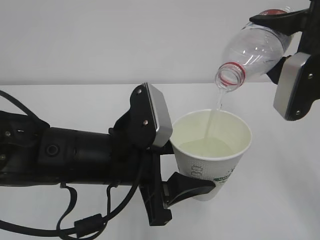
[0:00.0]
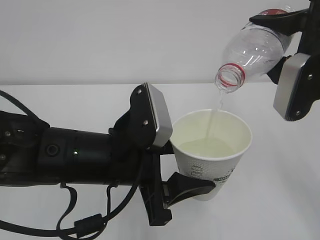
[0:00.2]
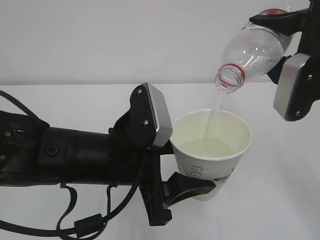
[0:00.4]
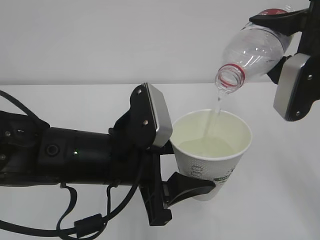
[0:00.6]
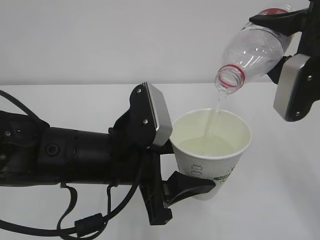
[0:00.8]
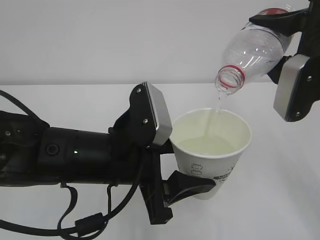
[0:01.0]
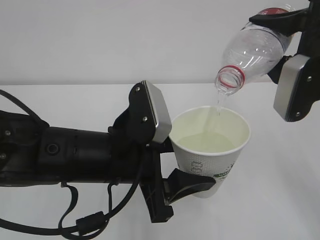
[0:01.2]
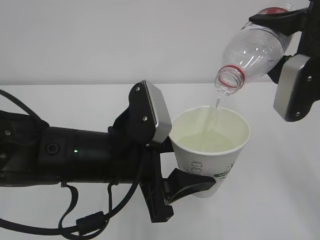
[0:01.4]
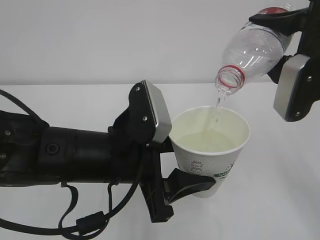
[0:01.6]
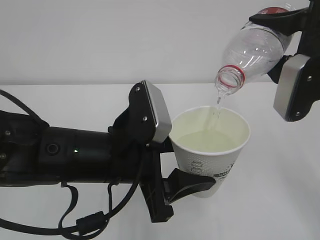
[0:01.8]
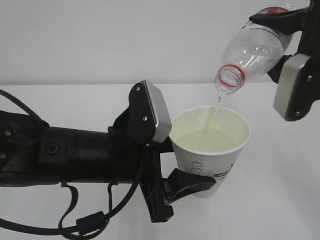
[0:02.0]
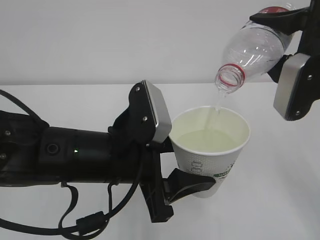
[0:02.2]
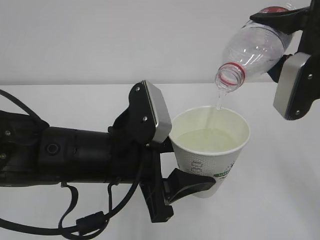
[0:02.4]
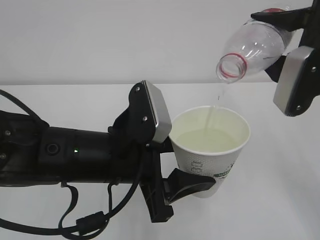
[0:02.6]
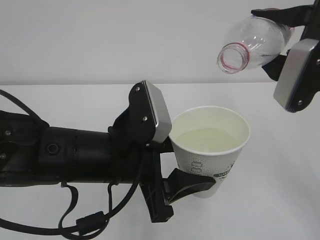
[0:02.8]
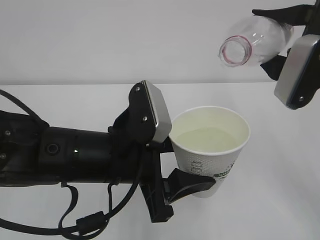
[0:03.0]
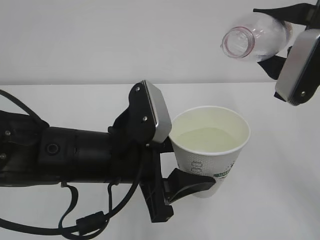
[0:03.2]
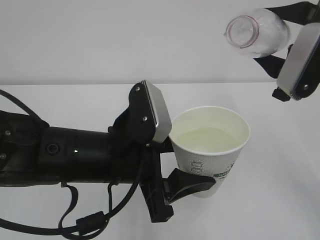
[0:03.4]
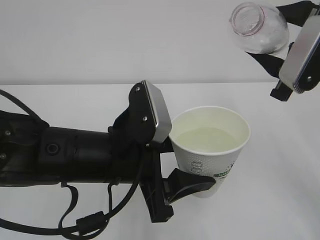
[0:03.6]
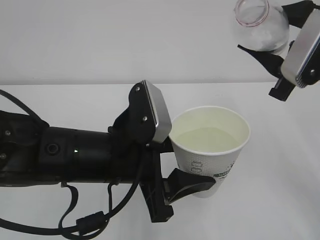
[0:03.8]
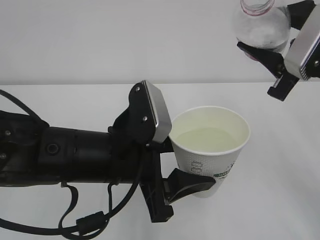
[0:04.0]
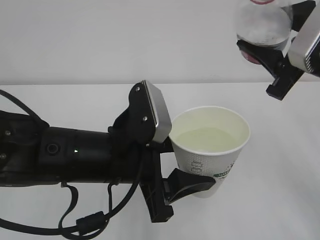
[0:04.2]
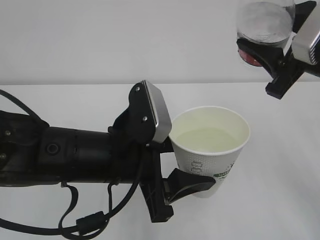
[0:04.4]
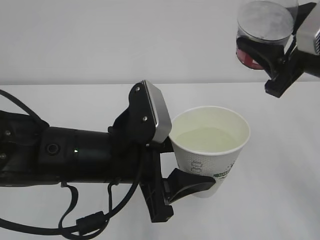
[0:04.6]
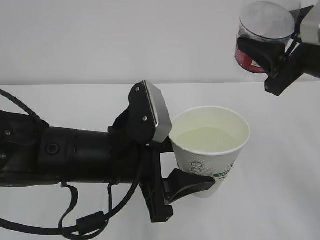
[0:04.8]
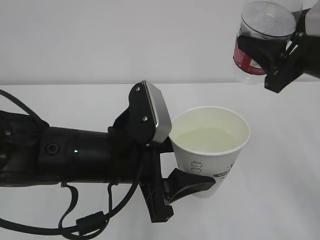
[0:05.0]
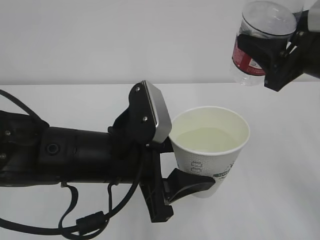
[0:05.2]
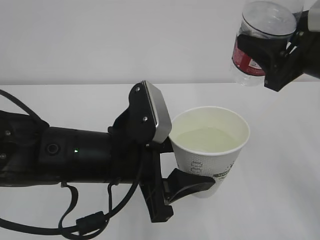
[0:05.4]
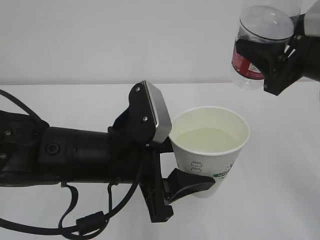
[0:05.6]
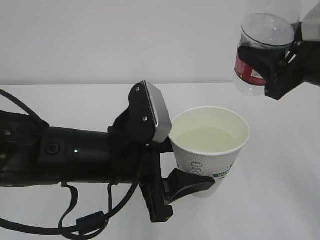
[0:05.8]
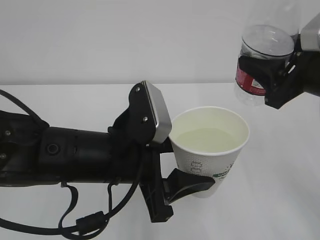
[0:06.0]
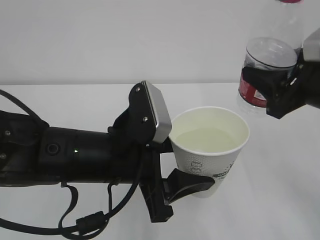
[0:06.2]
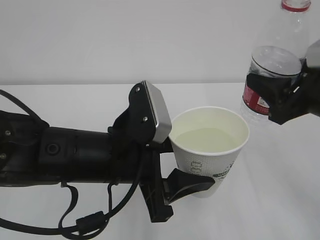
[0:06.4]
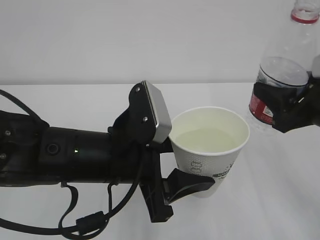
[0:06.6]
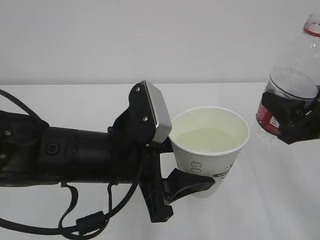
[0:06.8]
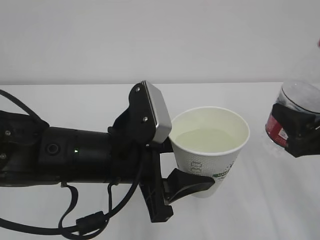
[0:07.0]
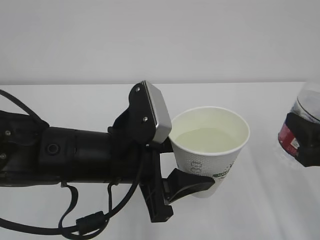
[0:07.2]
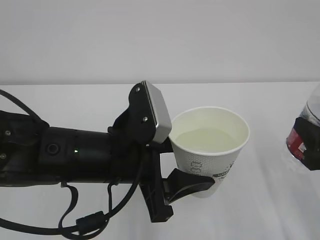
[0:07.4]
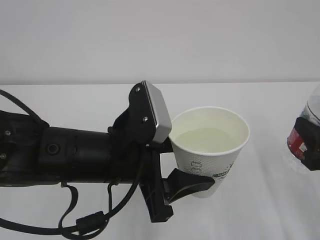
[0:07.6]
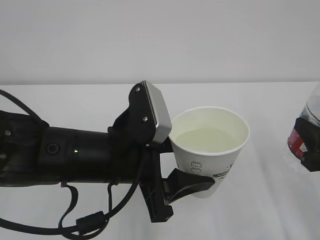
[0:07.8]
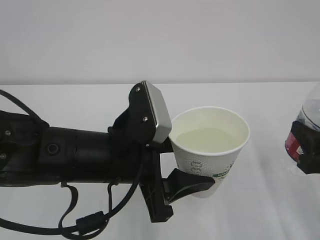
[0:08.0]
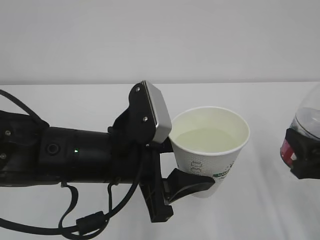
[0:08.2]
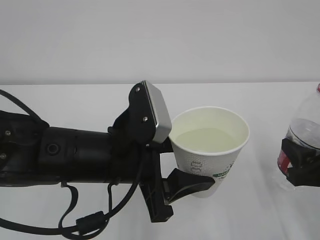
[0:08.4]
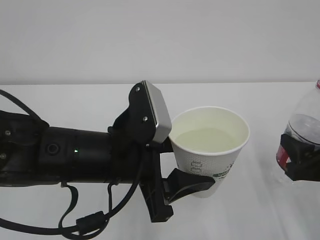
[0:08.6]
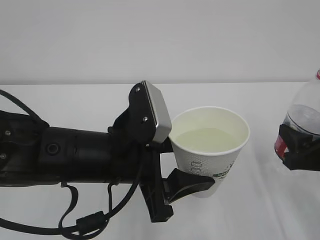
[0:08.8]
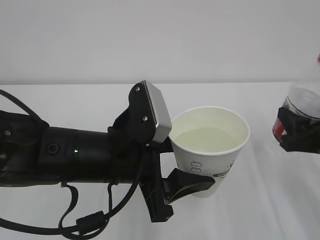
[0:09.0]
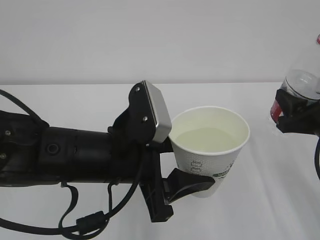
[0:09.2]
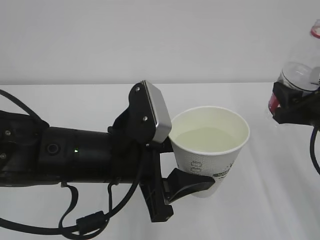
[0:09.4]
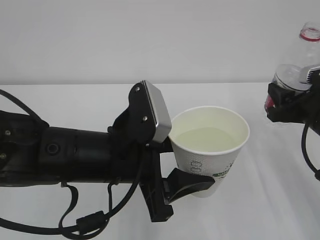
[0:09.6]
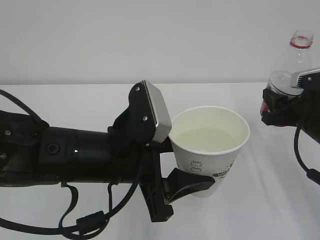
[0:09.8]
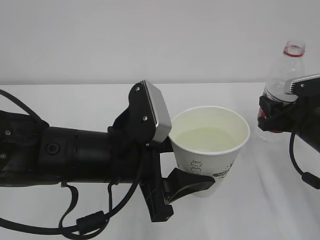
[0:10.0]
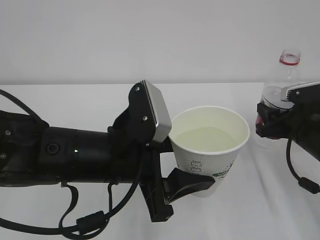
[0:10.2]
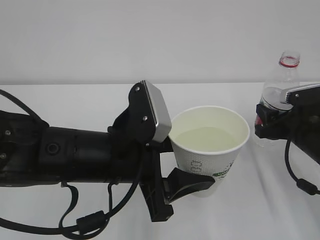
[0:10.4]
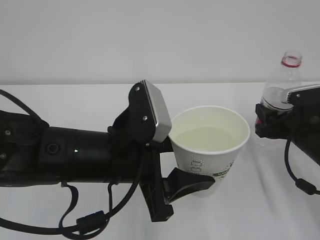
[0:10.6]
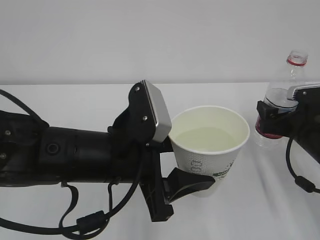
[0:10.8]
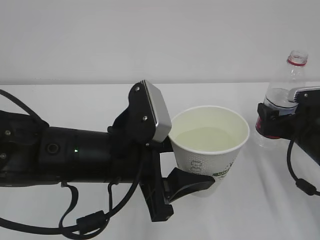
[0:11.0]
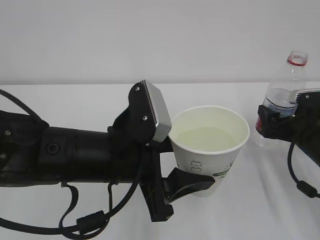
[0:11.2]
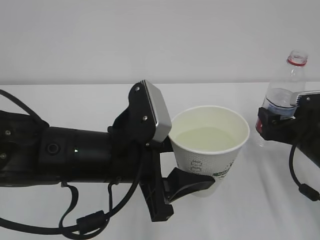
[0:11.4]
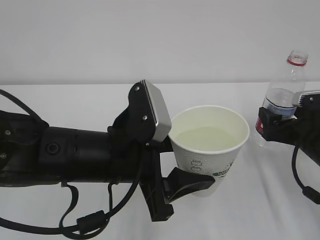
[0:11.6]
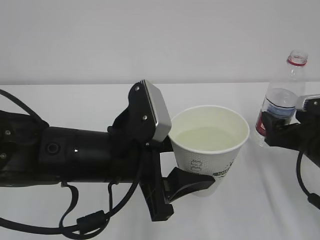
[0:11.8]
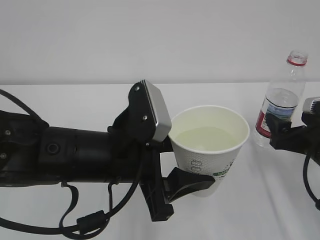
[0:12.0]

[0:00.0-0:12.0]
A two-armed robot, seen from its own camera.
0:00.0 to 0:01.6: The two grippers keep their place.
0:01.6 to 0:03.0: The grippers make only small movements.
0:06.0 to 0:07.6: The right gripper is displaced downward and backward by roughly 10 cm.
0:07.6 to 0:09.0: The right gripper shifts by roughly 5 cm.
0:09.0 to 0:10.4: The right gripper heads forward, covering approximately 10 cm.
0:10.4 to 0:12.0: The right gripper opens.

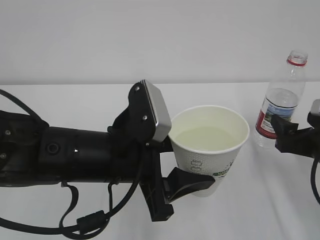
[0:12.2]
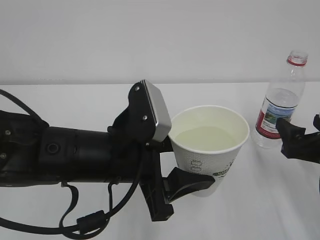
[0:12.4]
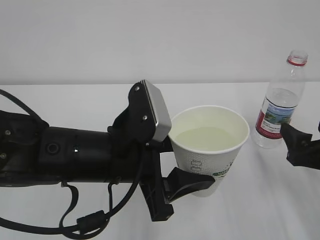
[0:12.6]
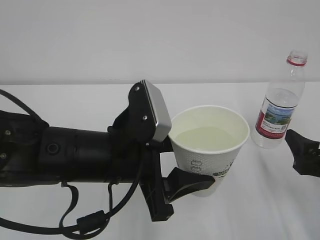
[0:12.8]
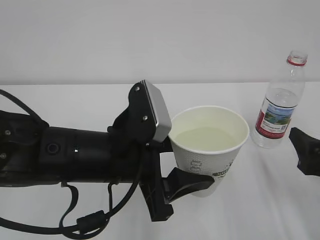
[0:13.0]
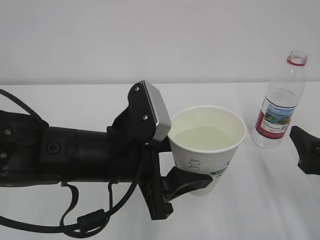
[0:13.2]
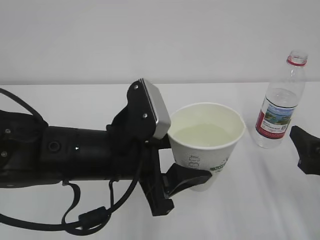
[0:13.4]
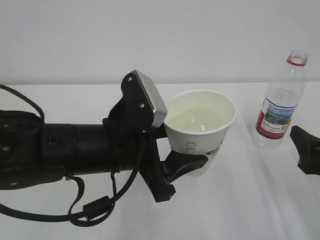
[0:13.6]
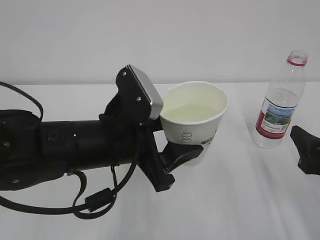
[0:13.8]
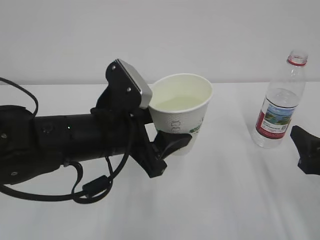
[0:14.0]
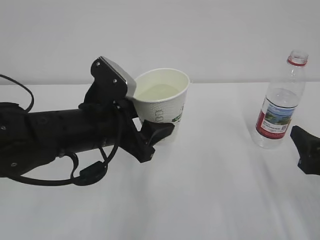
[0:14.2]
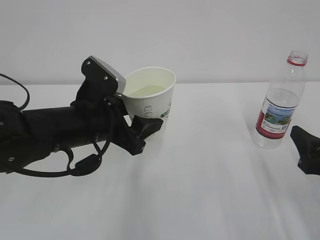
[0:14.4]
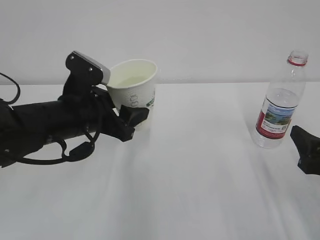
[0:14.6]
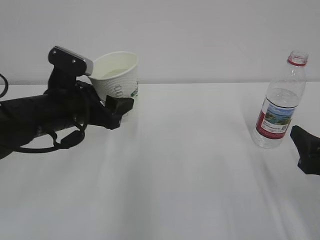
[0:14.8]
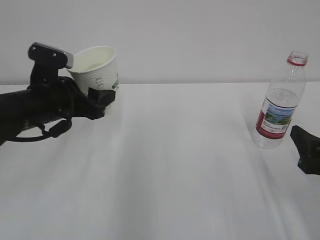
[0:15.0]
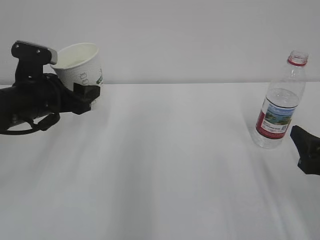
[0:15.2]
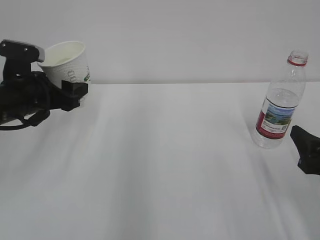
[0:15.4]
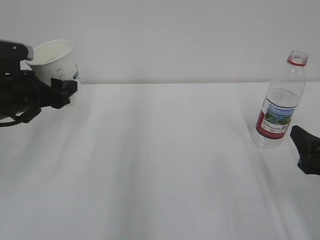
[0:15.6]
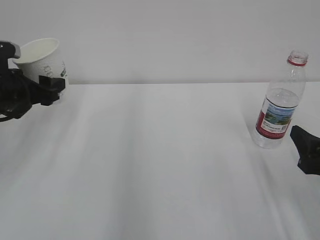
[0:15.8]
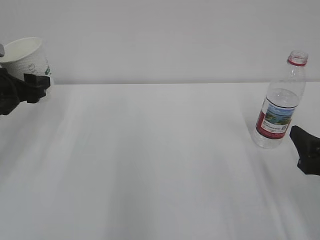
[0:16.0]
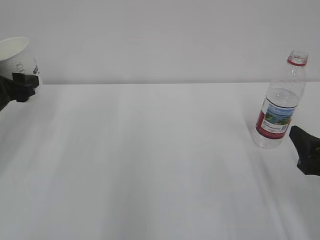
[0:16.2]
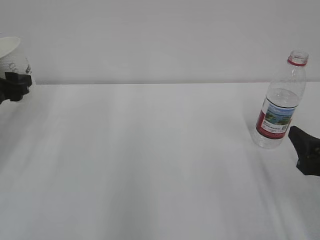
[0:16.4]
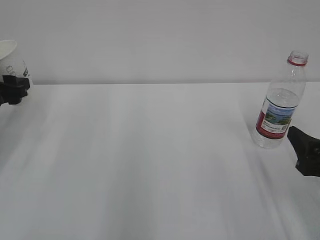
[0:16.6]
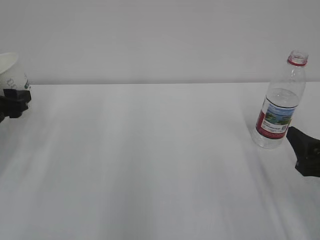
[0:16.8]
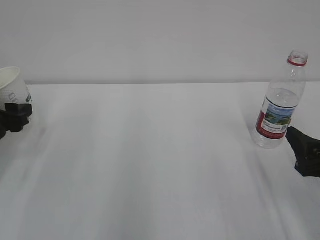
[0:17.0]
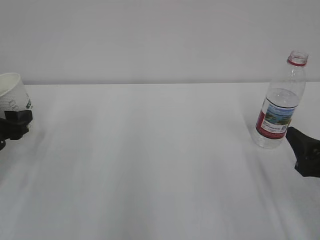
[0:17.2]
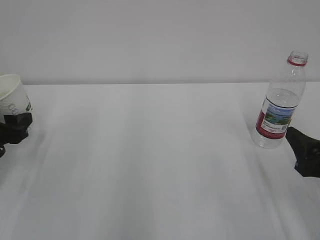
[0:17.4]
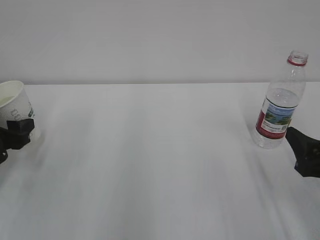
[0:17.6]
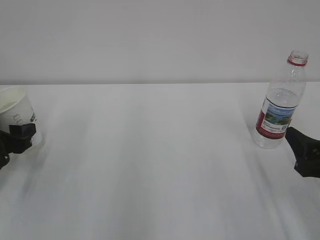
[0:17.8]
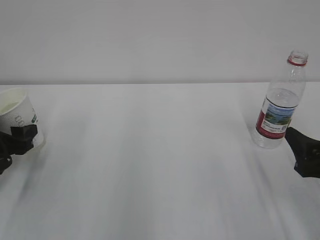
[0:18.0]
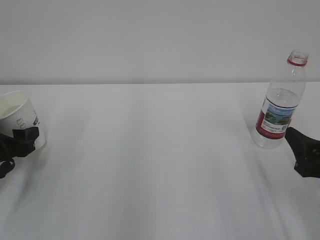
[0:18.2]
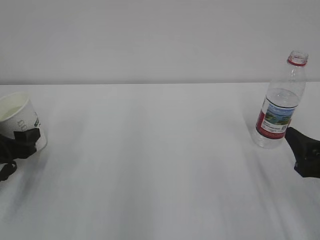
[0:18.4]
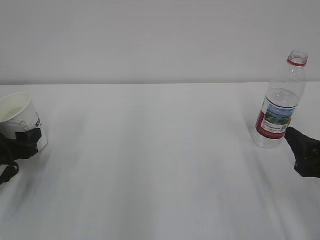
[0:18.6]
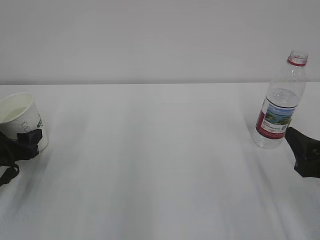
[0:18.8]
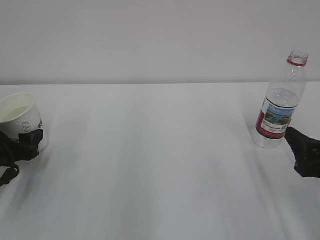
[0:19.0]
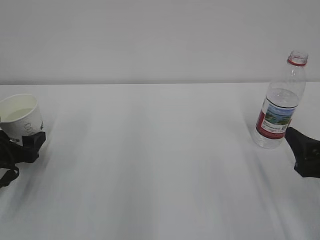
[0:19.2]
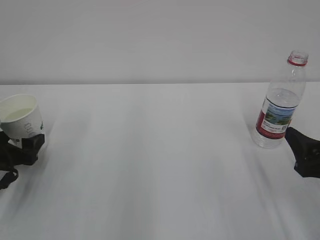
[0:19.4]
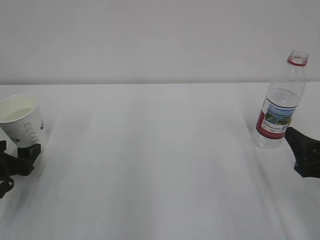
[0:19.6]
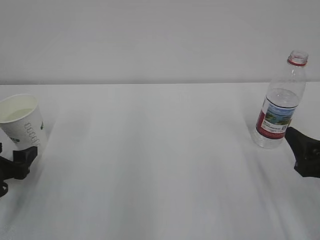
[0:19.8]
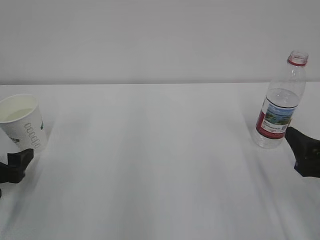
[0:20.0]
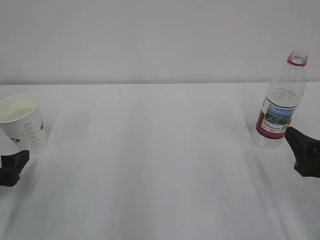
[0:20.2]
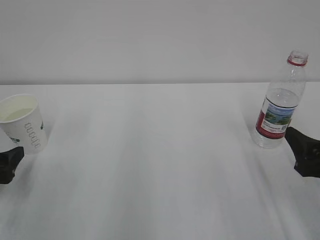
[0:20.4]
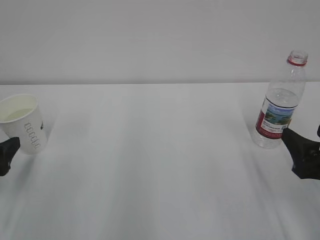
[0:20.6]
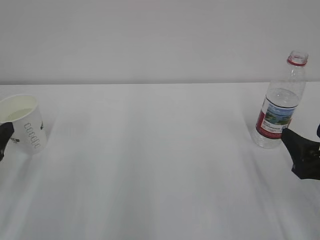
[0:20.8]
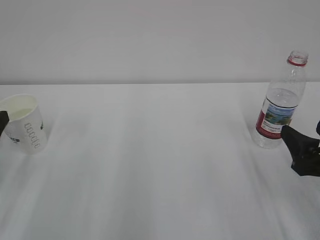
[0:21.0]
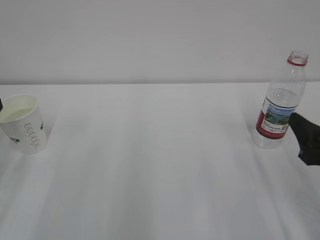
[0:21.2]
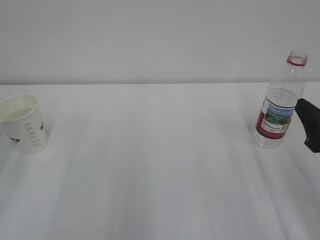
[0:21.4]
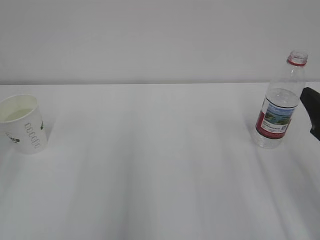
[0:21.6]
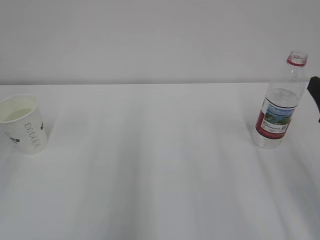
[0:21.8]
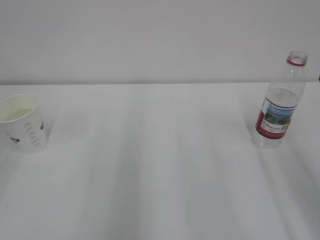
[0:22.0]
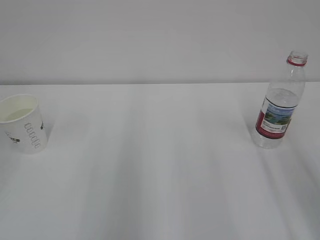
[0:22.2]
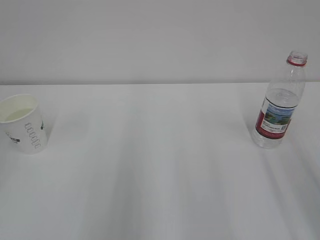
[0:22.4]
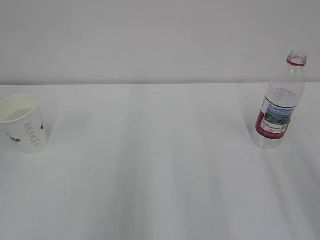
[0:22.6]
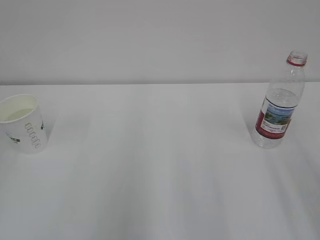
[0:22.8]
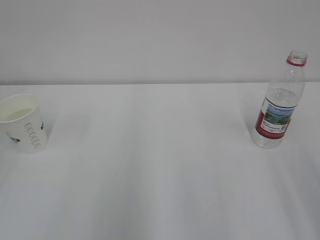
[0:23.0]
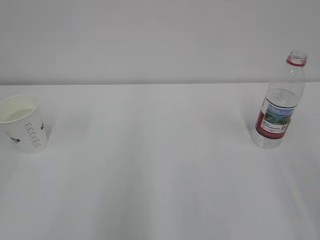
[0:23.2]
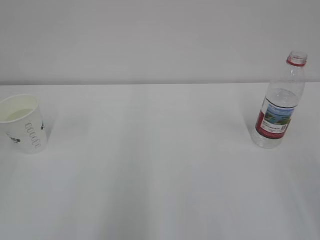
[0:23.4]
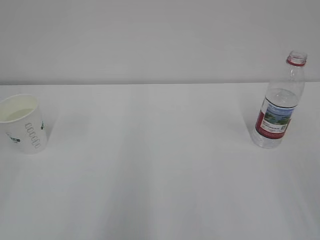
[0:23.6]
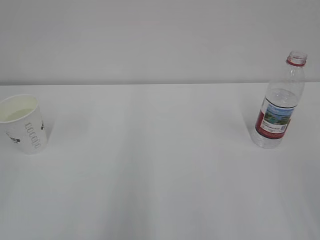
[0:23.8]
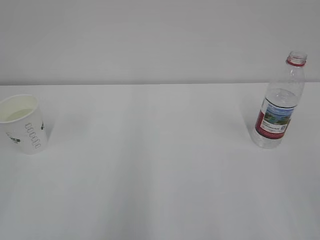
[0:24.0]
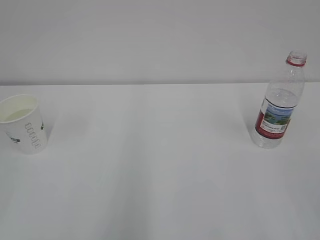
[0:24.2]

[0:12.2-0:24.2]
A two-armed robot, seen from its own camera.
0:12.2 to 0:13.8: The right gripper is displaced backward by roughly 5 cm.
0:13.8 to 0:15.2: The left gripper heads to the left and forward, covering some 20 cm.
0:15.2 to 0:16.6: The left gripper heads to the left, covering some 10 cm.
0:16.6 to 0:18.2: The left gripper heads downward and backward, covering approximately 10 cm.
0:18.2 to 0:19.8: The left gripper opens.
0:19.8 to 0:21.2: The left gripper moves upward, roughly 10 cm.
0:21.2 to 0:22.6: The right gripper shifts approximately 15 cm upward and backward.
